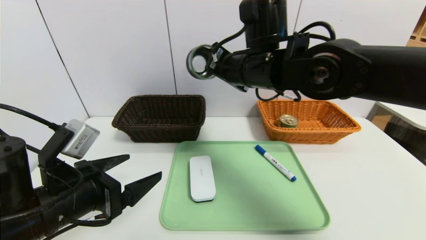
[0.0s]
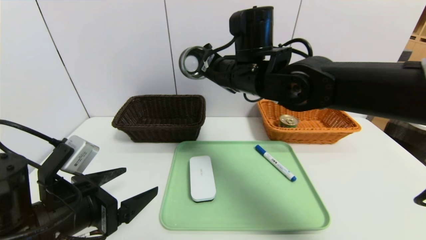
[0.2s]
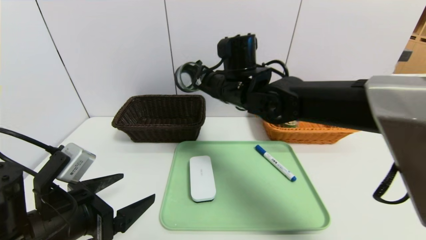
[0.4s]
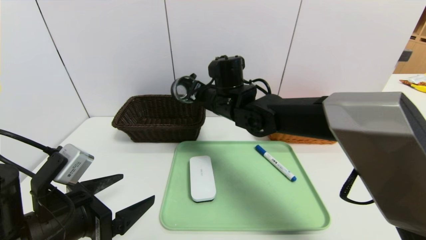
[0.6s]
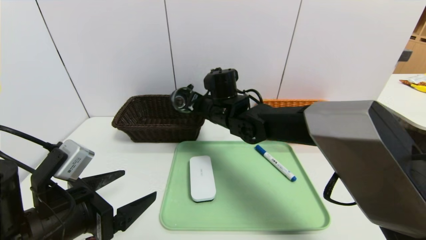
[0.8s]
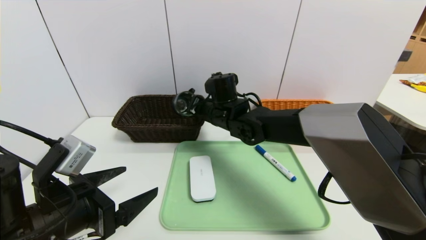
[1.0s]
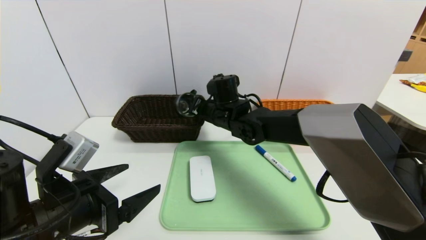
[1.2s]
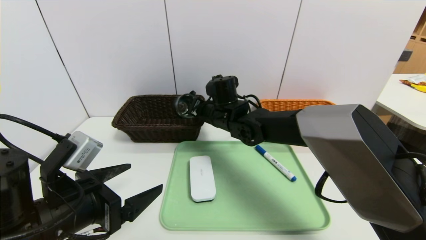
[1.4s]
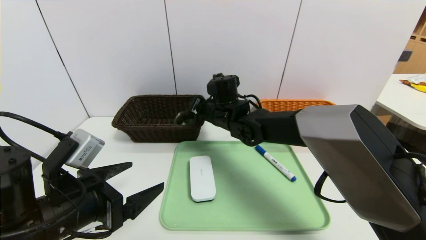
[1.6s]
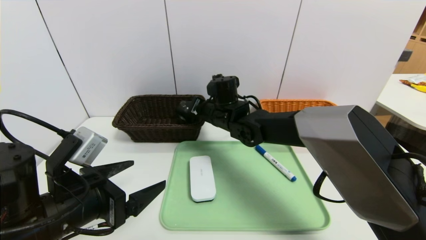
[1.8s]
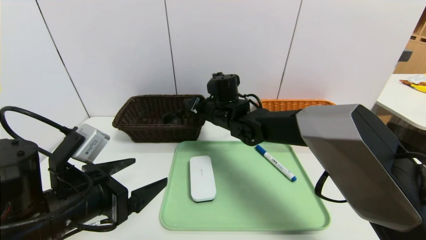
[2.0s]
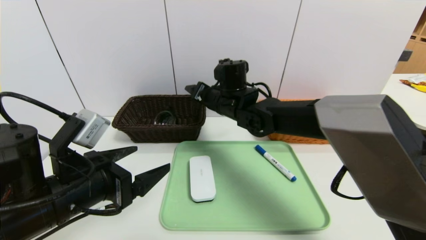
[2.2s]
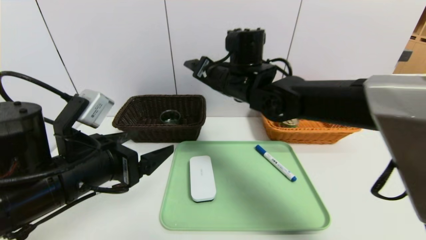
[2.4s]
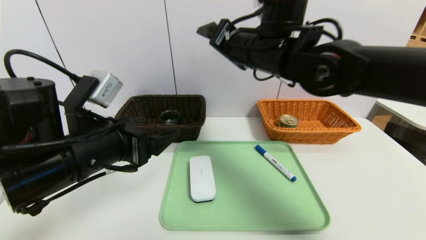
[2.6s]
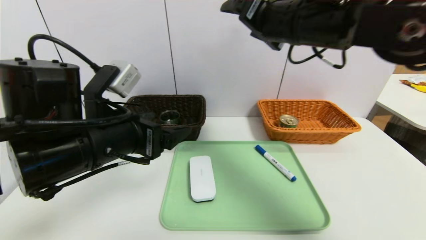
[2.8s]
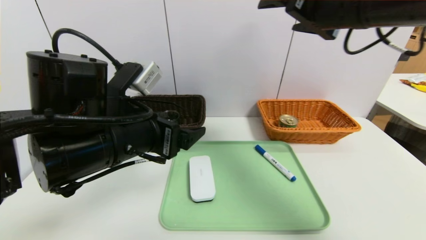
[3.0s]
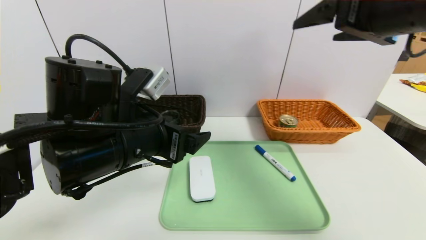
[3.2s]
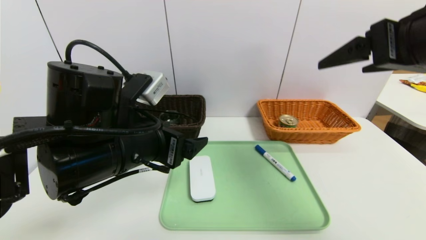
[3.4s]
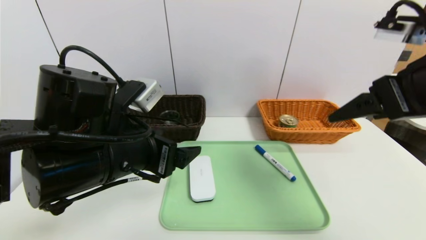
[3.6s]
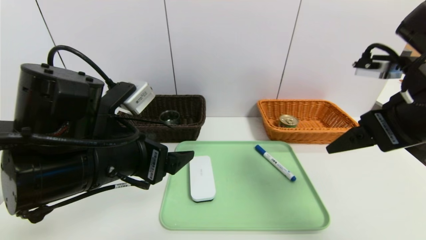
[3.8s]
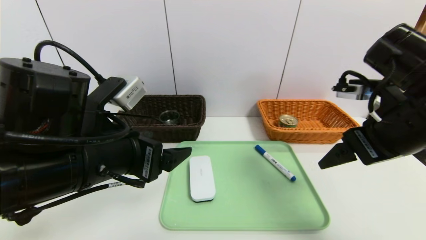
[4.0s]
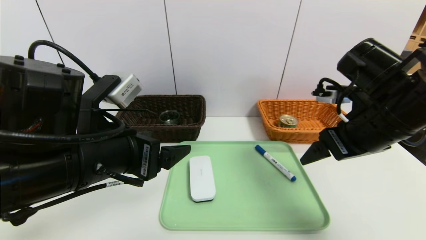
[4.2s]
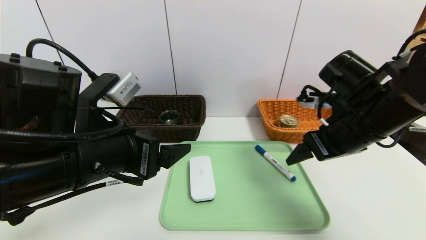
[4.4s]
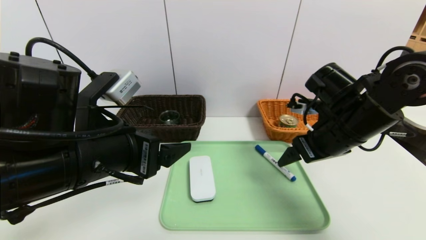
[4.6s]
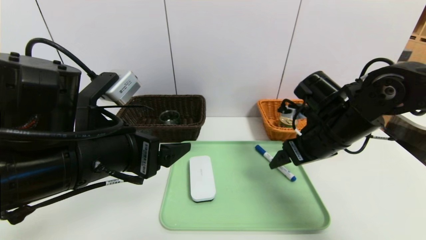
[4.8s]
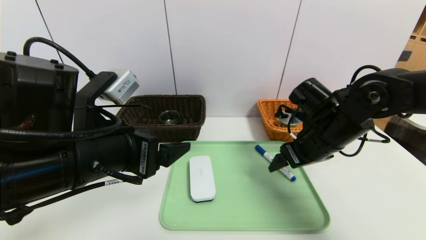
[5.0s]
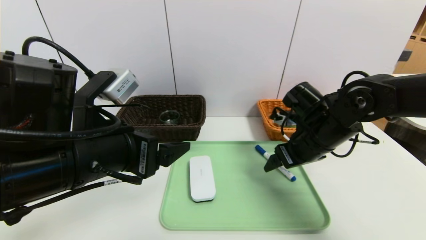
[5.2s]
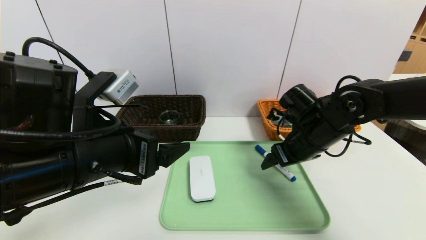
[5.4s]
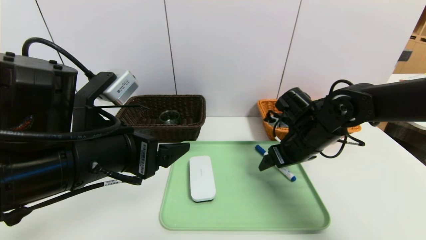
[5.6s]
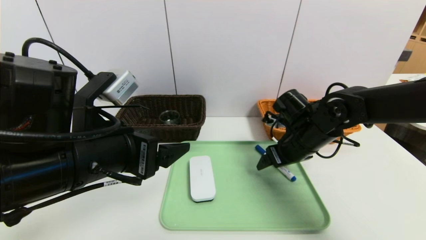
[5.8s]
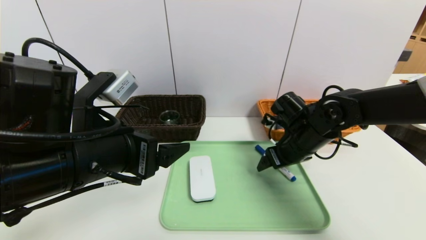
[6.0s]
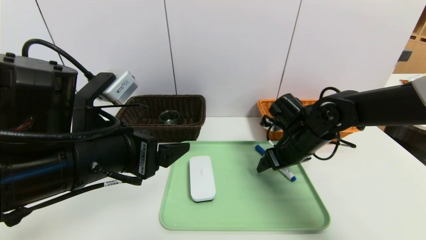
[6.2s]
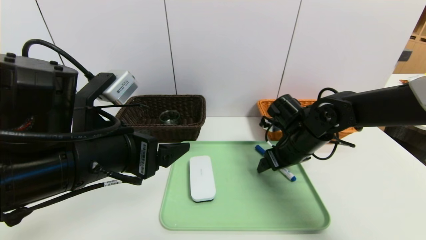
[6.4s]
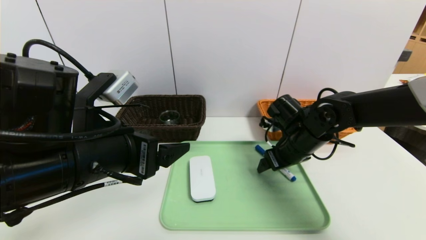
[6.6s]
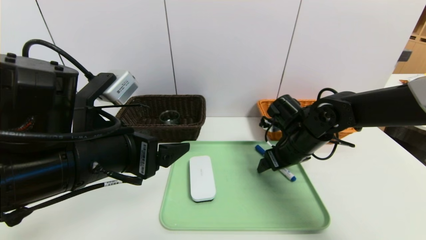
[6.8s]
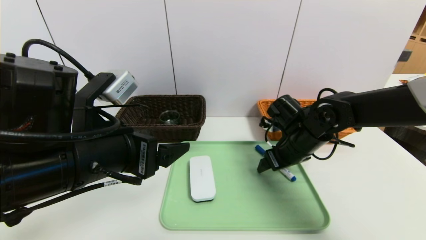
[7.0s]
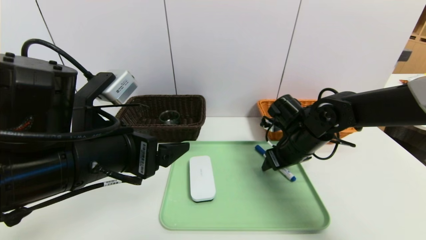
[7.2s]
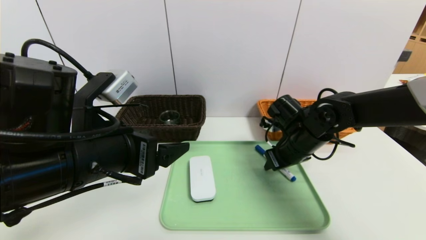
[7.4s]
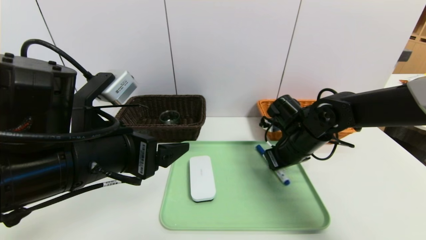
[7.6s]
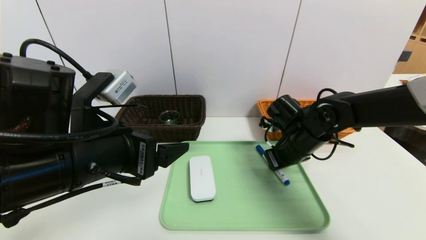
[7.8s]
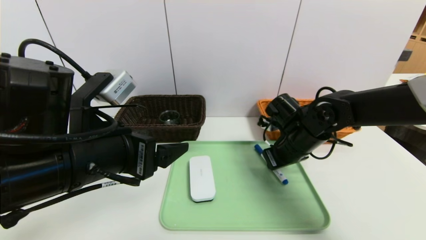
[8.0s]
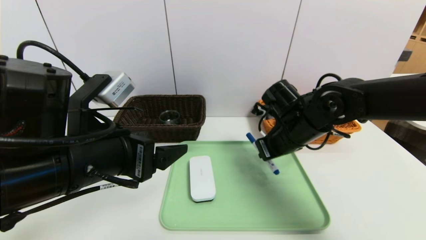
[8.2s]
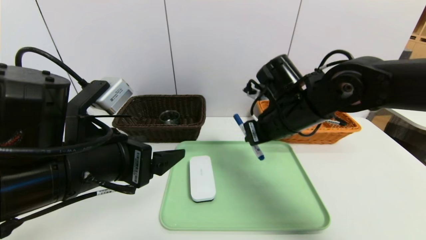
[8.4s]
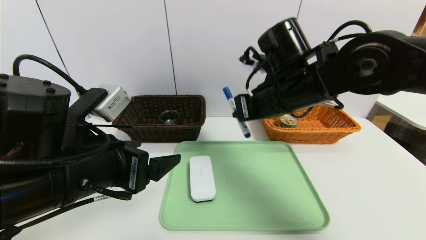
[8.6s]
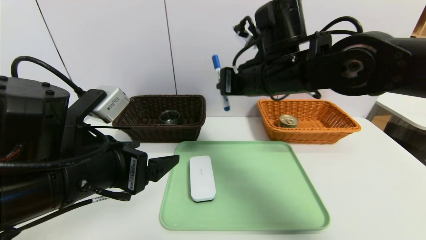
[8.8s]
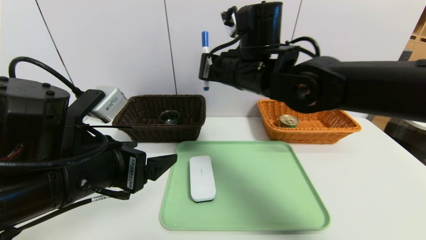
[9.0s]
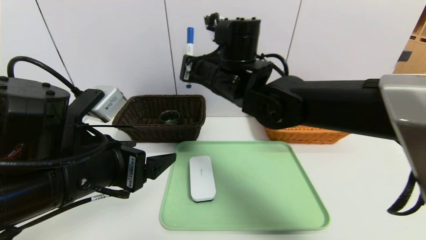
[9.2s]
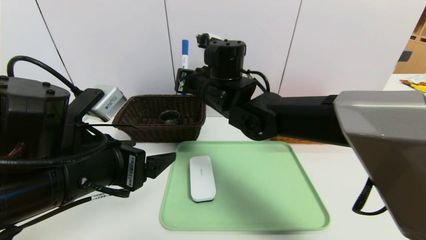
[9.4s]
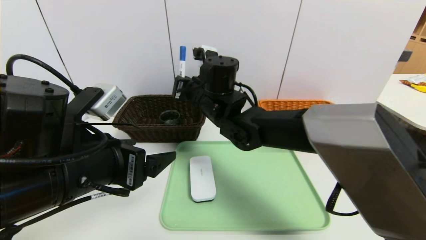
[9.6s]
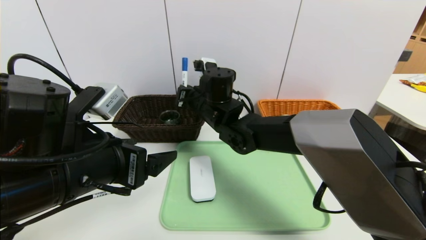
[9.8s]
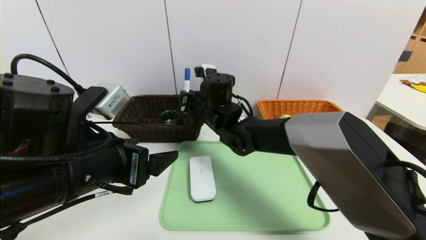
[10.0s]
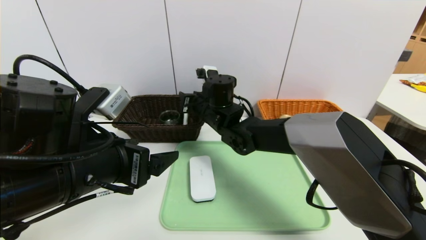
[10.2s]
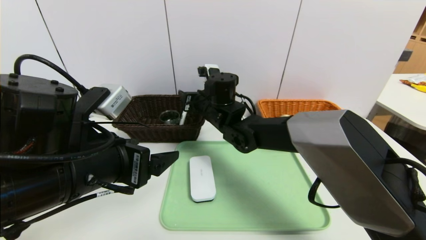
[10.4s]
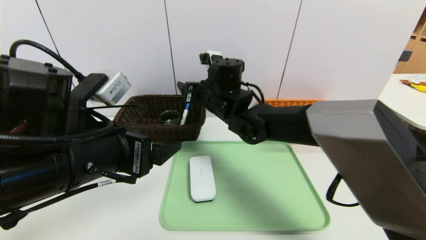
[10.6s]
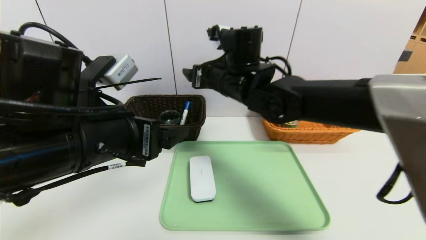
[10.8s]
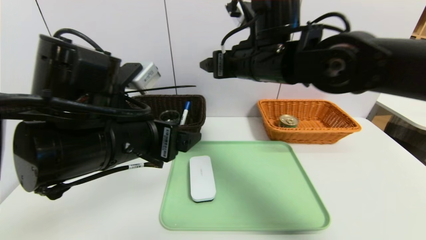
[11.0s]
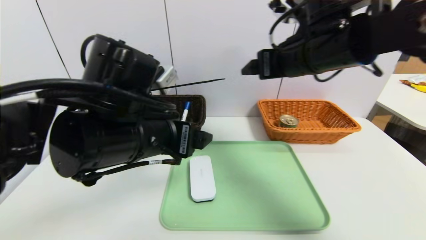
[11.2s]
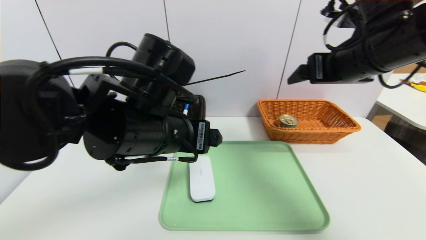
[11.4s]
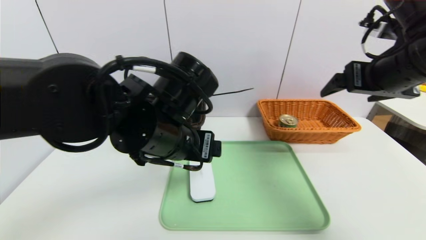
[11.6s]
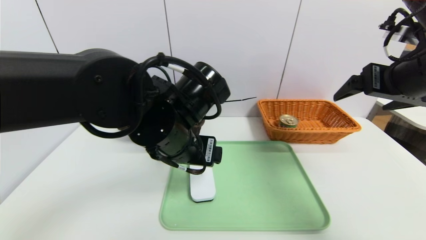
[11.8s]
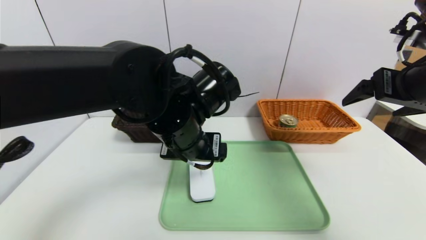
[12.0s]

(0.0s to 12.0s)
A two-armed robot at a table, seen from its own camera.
Task of the whole recording: place the food in the right basket with the right gripper, and place the non food items in the left basket with the left gripper.
Step, 2.0s - 10.4s: Grasp the blue marker and put it in the left basket.
0.0s - 1.6s: The right gripper is displaced downward and forward by roughly 15 cm.
1.6s - 3.0s: The right gripper is displaced upward, to the right and backward by roughly 30 cm, and opens up; the left gripper shifts roughly 10 cm upward, to the right and forward.
3.0s - 4.4s: The right gripper heads downward, covering approximately 15 cm.
4.4s - 6.0s: The right gripper shifts approximately 10 cm downward and forward.
6.0s - 7.6s: The right gripper closes up.
7.6s - 9.0s: The right gripper heads upward and to the left, covering roughly 20 cm.
9.0s - 10.4s: The right gripper shifts approximately 10 cm downward and forward, and opens its fingers.
10.4s - 12.0s: The right gripper heads to the right, backward and upward, covering some 35 cm. Meanwhile the left gripper shifts roughly 15 cm to the right and forward.

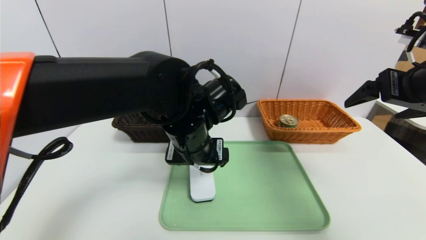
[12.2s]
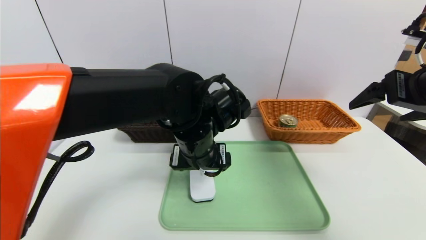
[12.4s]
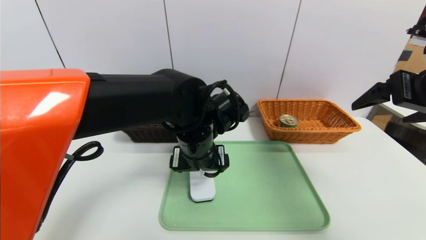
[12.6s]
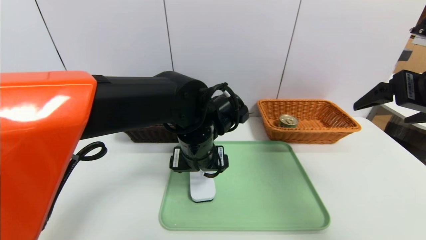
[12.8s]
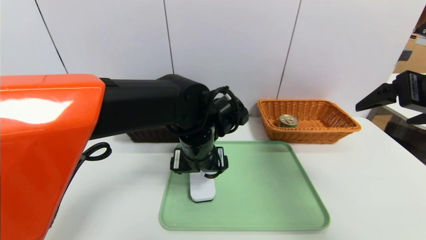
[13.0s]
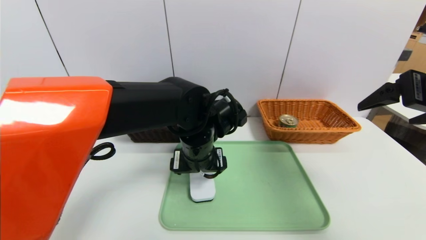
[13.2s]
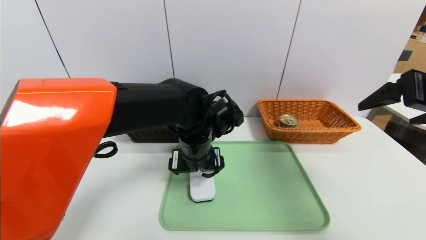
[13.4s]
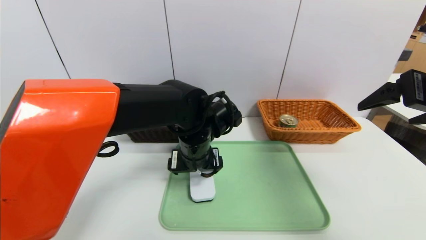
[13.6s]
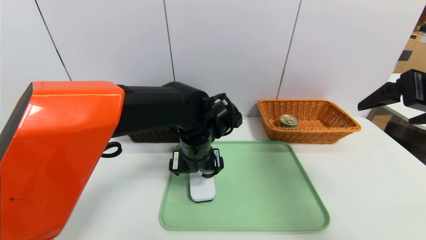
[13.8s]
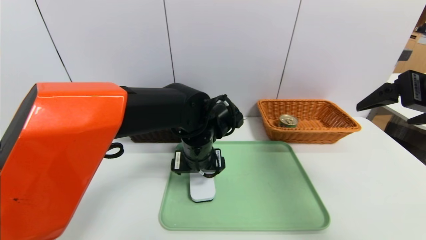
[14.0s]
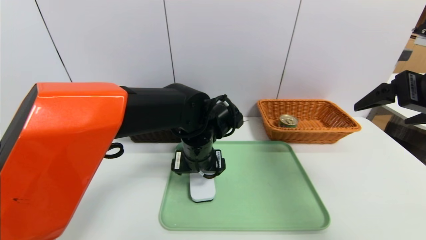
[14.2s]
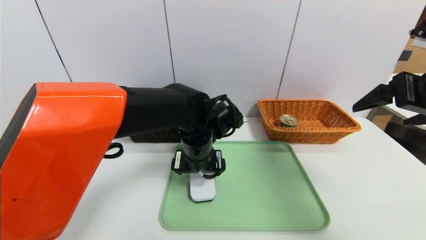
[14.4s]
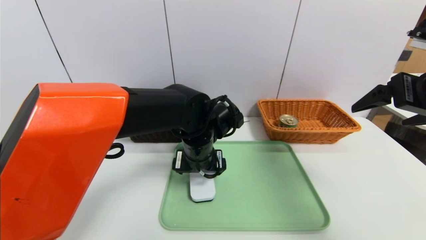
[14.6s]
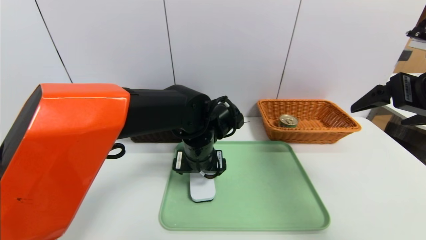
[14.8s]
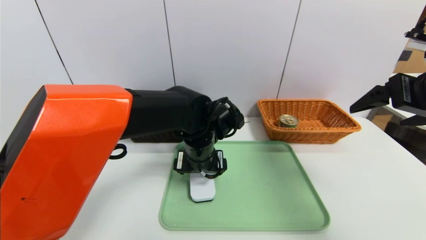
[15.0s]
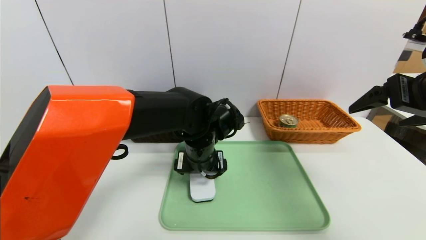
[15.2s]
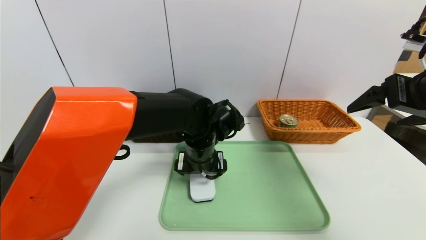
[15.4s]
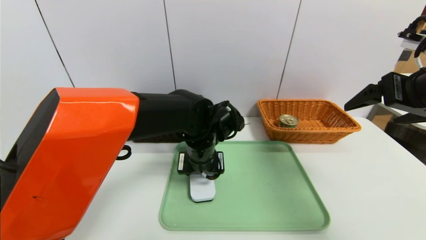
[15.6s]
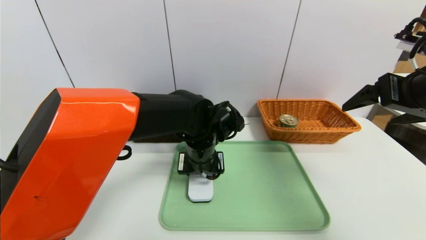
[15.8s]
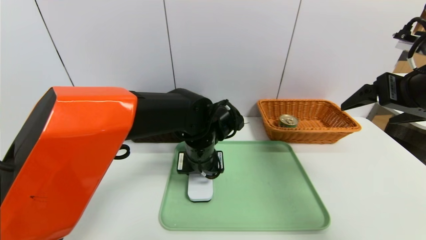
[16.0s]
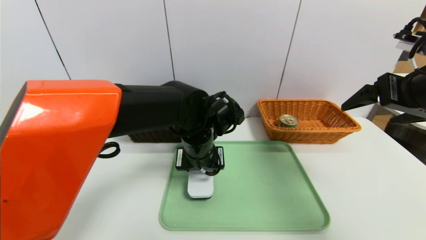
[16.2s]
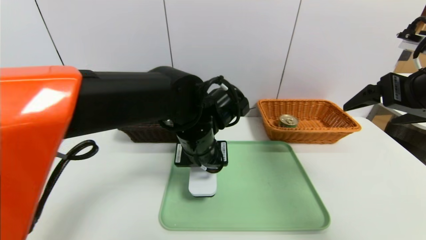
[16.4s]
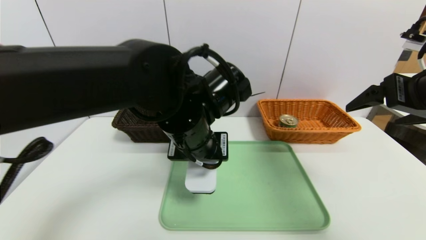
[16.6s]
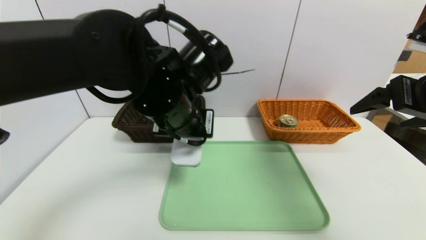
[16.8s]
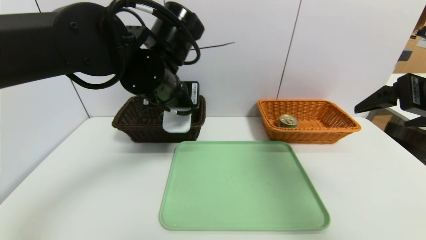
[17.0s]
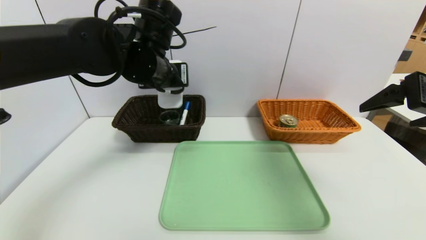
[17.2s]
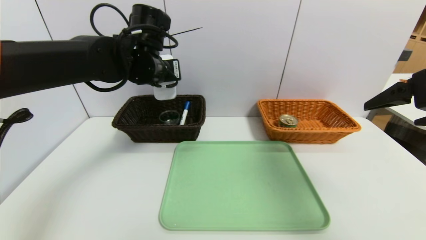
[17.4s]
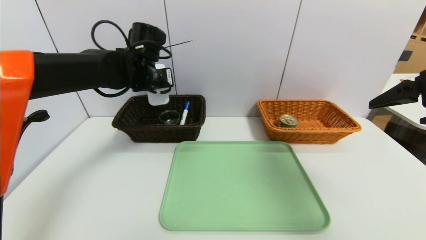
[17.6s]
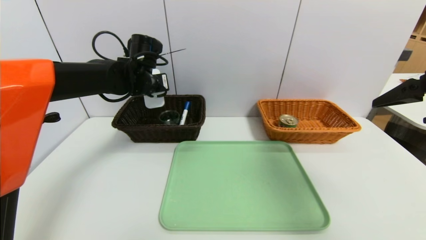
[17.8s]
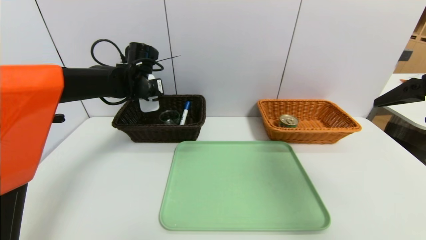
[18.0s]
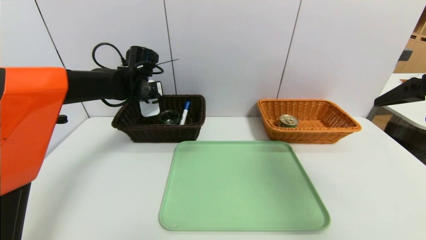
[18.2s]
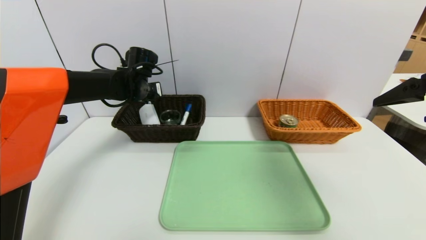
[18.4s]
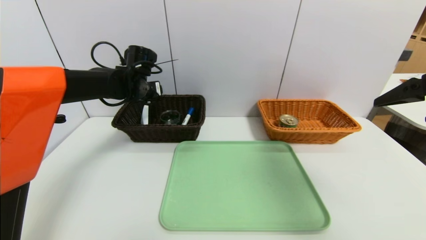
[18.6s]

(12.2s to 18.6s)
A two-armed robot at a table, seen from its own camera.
Task of the whole recording: place the food in the right basket with the right gripper, and place the non food items in the left basket with the left gripper.
12.2s - 13.8s: The left gripper is displaced downward by approximately 5 cm.
13.8s - 15.4s: The grippers stay close to where they were, moving slightly.
15.4s - 17.0s: The left gripper moves upward and to the left, roughly 15 cm, and closes up.
17.0s - 18.6s: The left gripper shifts roughly 20 cm forward, to the left and downward, and opens.
